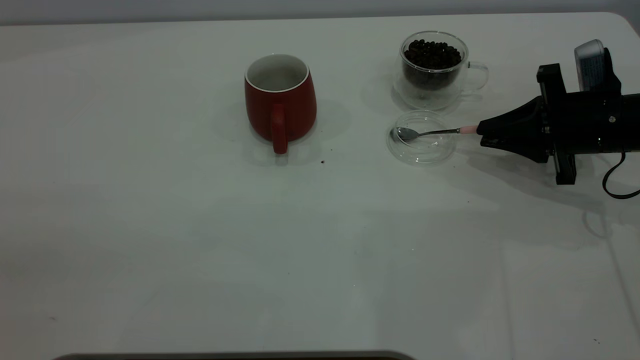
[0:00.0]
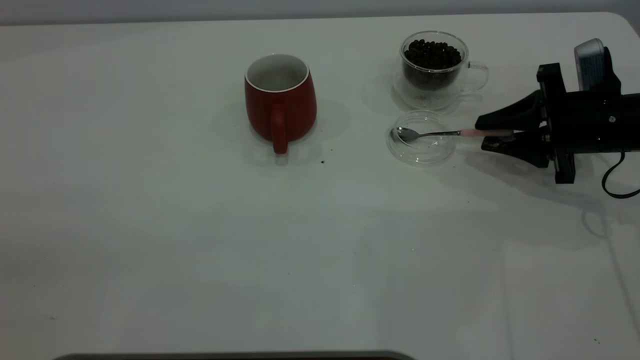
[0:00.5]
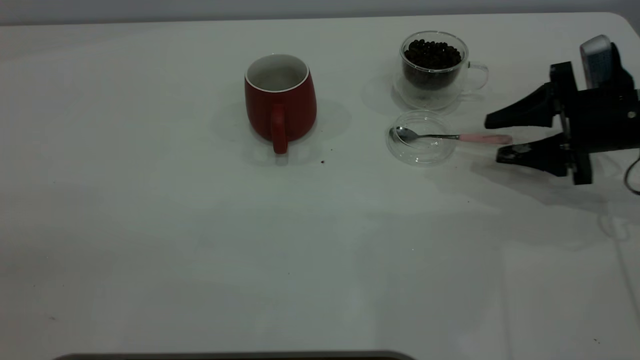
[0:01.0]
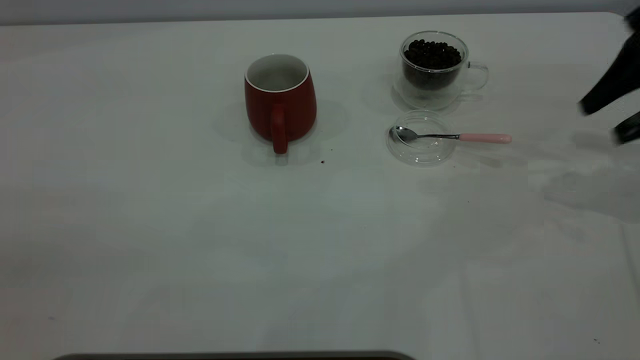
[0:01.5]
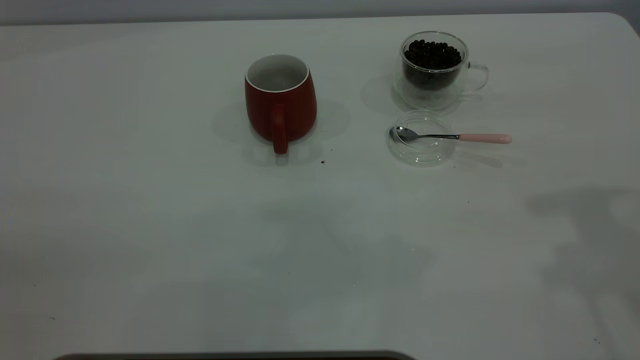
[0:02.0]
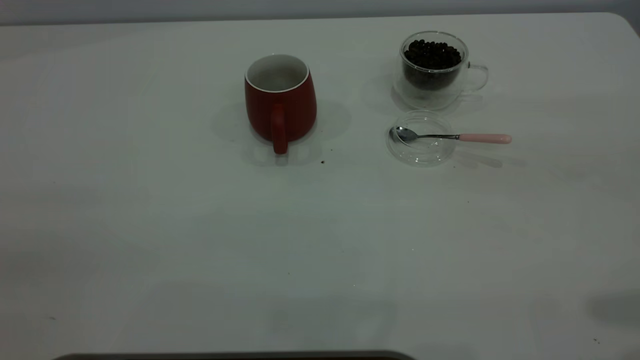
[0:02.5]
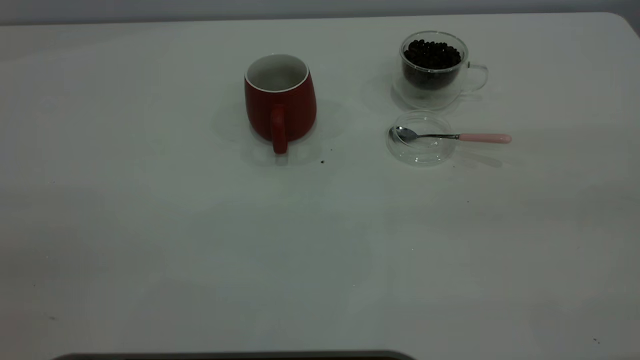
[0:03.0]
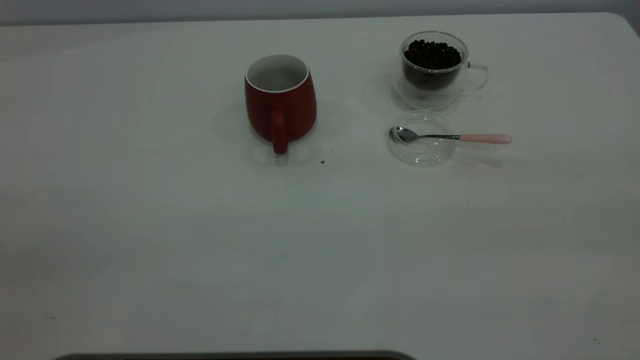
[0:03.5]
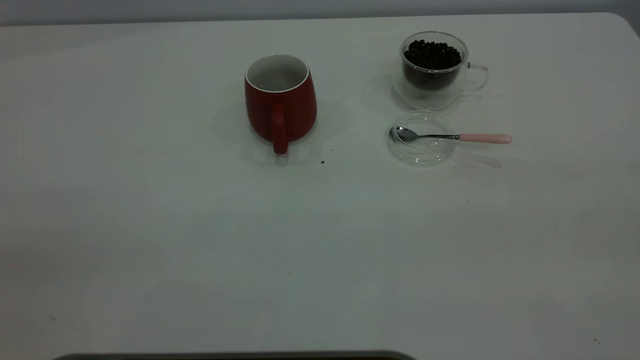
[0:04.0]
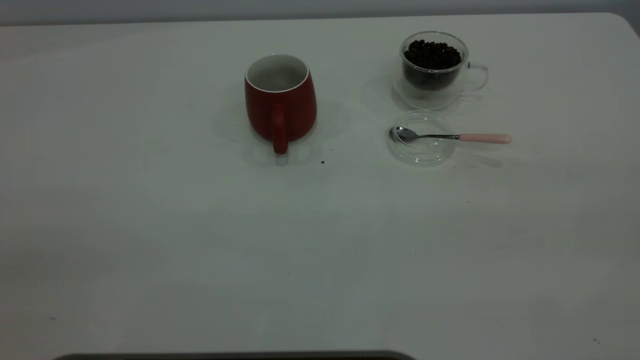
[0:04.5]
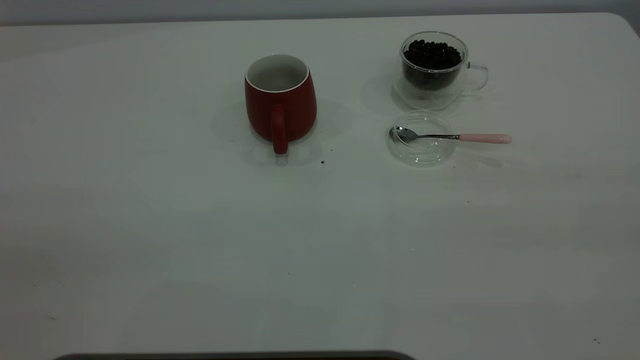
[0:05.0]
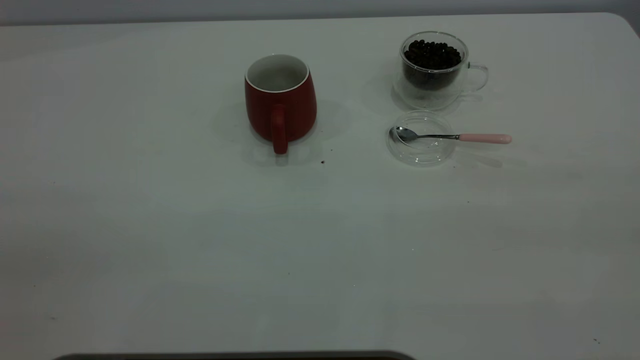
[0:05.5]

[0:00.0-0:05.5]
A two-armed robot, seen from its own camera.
Task of the whole recording: the left gripper place the red cup in the center of the table, the right gripper take the pink spoon from the cup lid and scoop out the coffee beans from the coffee cup and put them into the red cup, the right gripper put the spoon back into the cup lid.
0:00.0 to 0:02.0: The right gripper moves upward, about 35 cm, and opens its fingers.

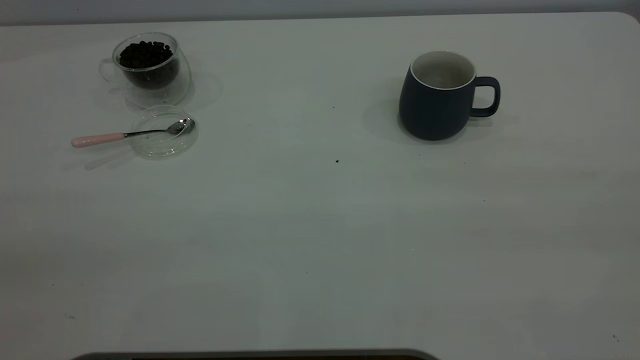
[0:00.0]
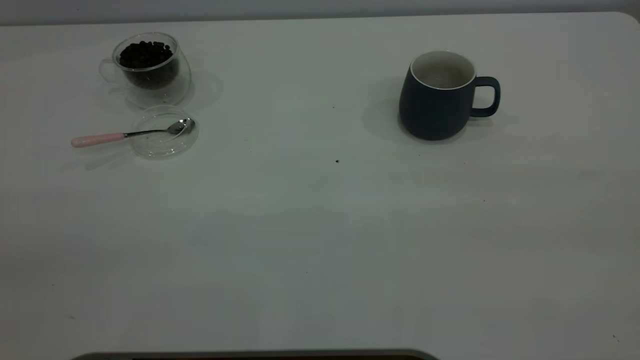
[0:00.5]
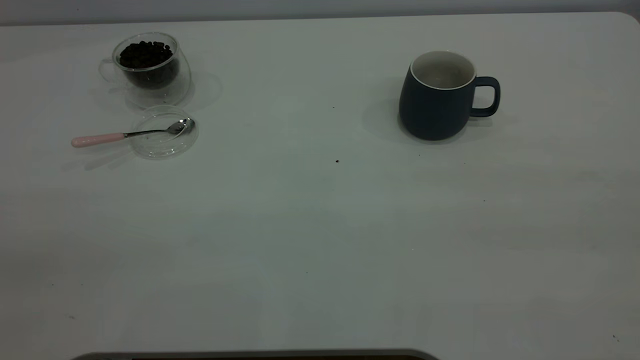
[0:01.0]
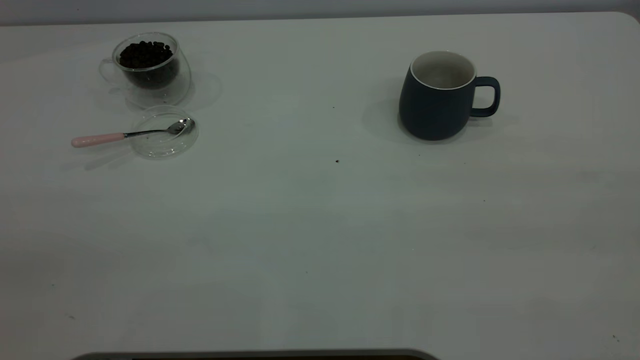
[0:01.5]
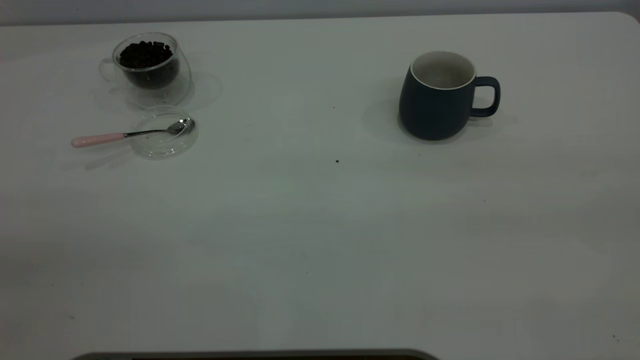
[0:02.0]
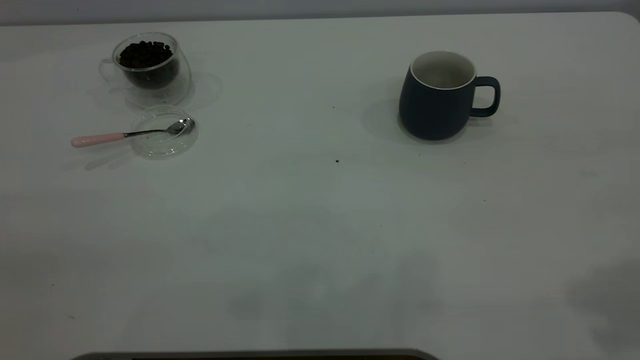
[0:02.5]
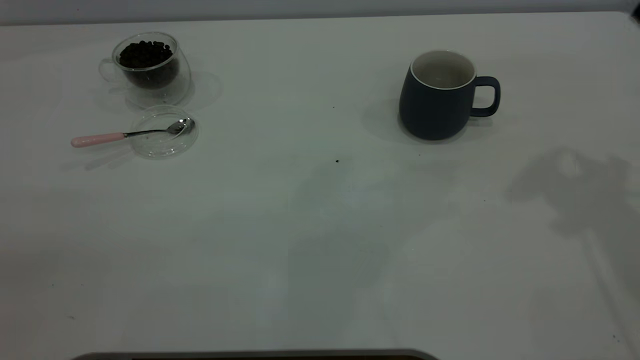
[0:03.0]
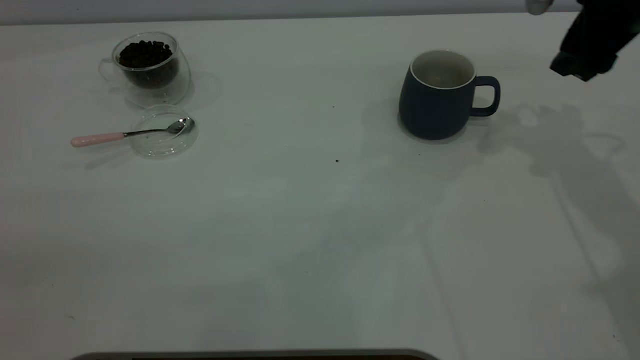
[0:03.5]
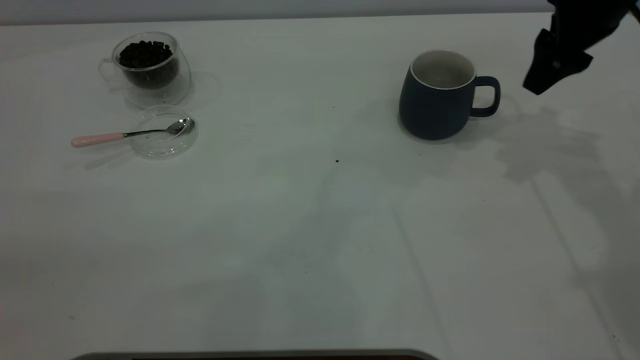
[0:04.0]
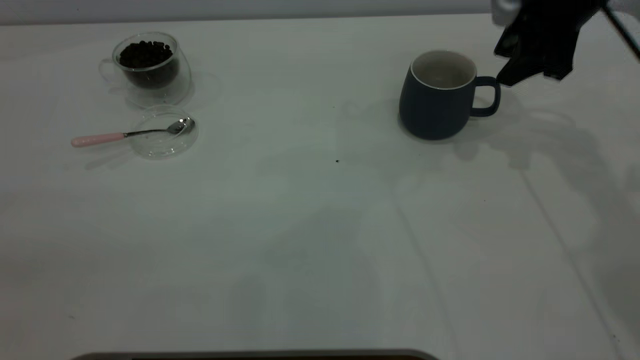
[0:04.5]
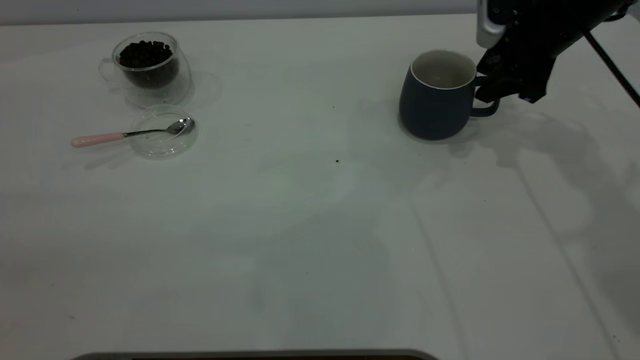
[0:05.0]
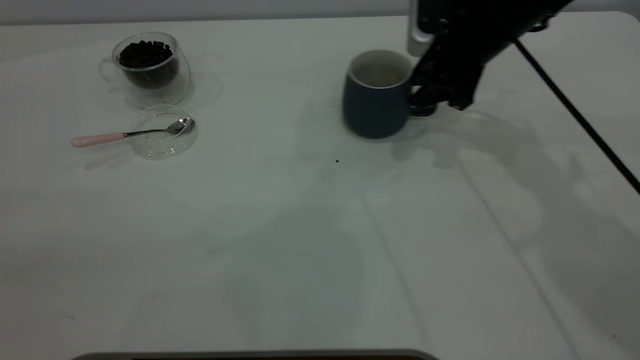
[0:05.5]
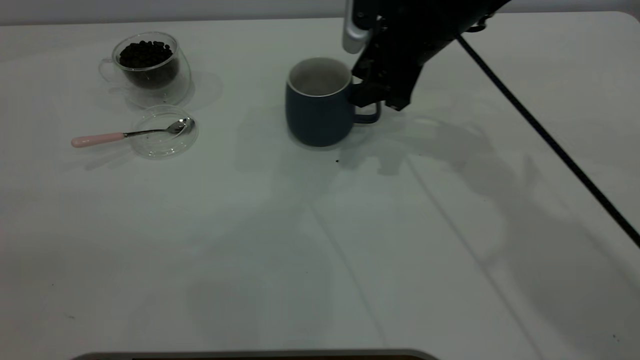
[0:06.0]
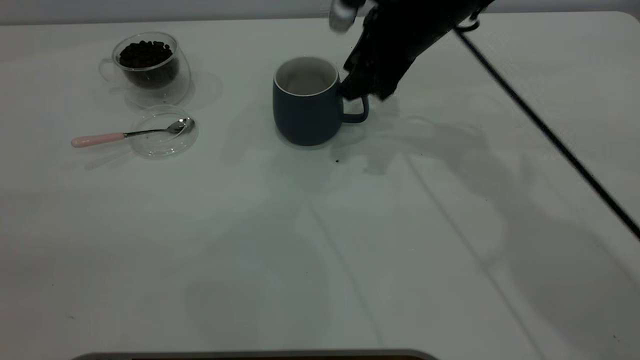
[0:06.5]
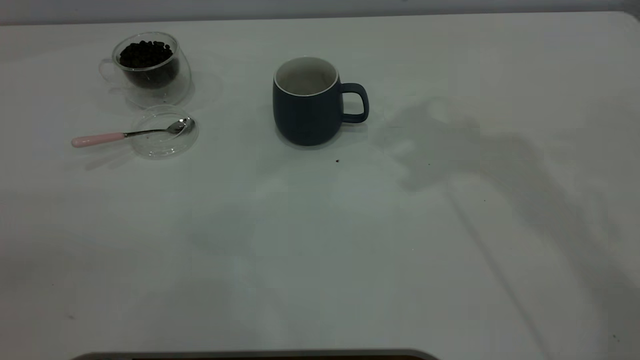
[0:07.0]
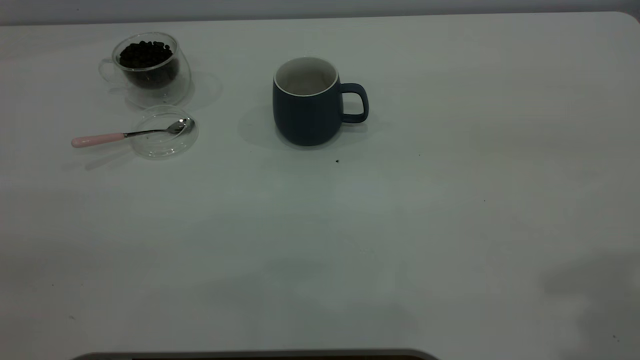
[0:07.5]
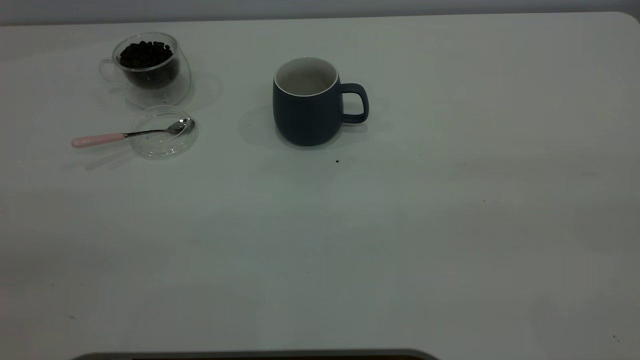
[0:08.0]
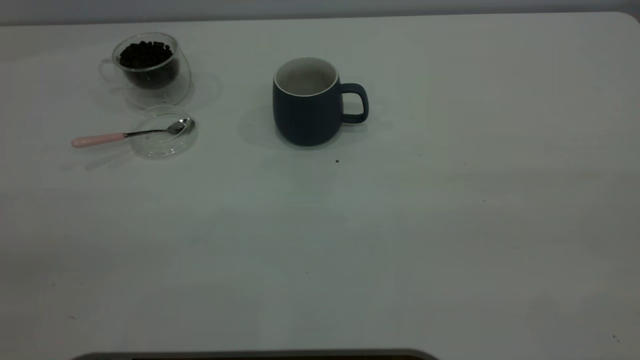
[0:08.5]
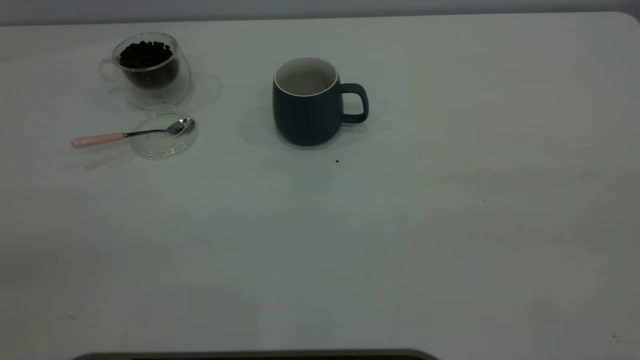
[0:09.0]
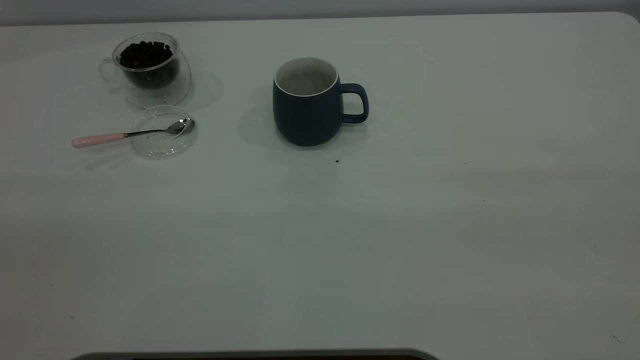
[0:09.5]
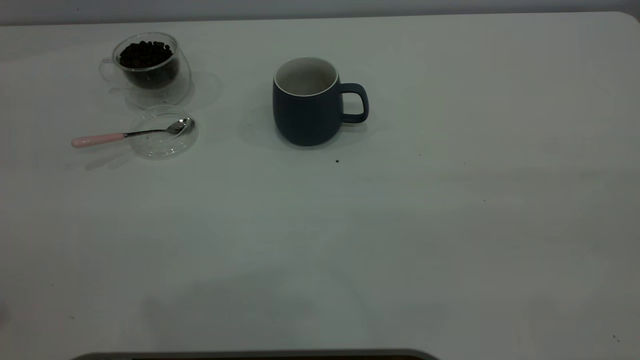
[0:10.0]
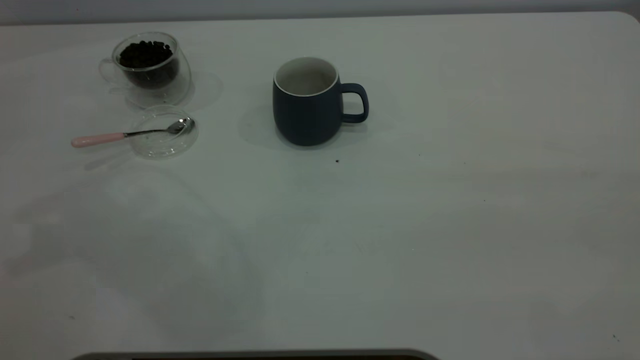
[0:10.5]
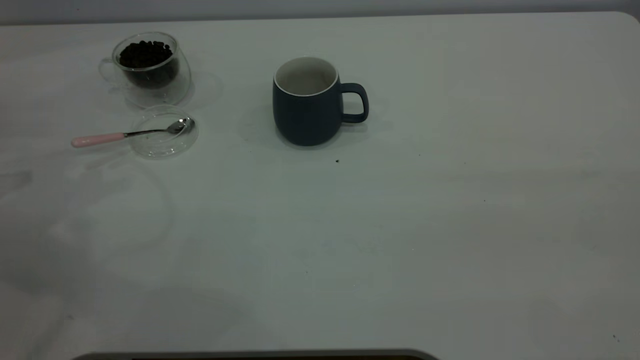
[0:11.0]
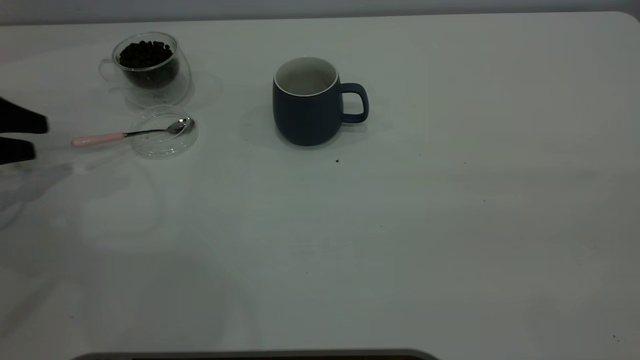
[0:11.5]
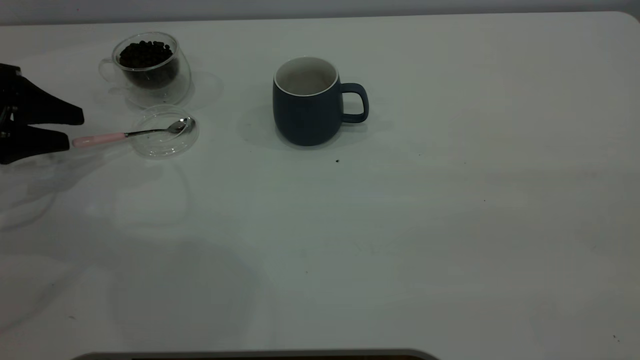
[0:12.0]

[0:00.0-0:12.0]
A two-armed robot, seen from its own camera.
Task of the whole recording: the right gripper place the grey cup in the center of the table, the left gripper take the pink spoon from the cup lid and scoop out the coffee beans from the coffee cup and put them into the grey cup, the left gripper put the spoon back into the cup lid.
Step, 0:00.0 to 0:06.5: Move the cup to the center of view.
0:02.0 to 0:04.0: The right gripper heads forward and downward, covering approximately 40 cm.
0:04.0 to 0:06.0: The right gripper moves to the left and downward, some 15 cm, and closes its fingers.
0:06.0 to 0:08.0: The right gripper is displaced backward, upward and to the right by approximately 50 cm.
0:10.0 to 0:12.0: The left gripper shifts some 35 cm downward and forward.

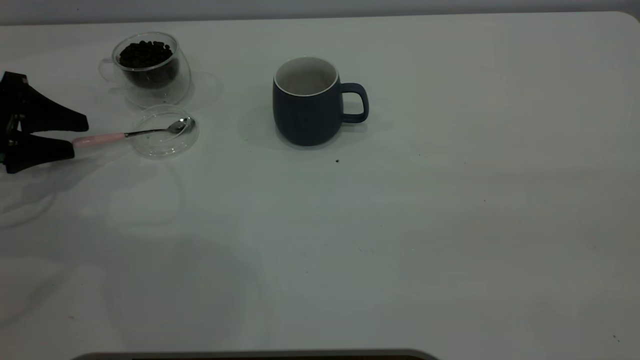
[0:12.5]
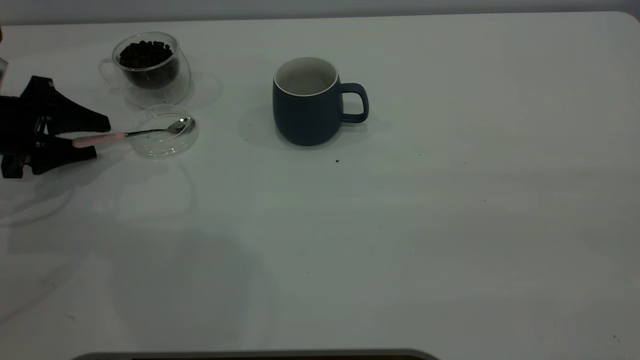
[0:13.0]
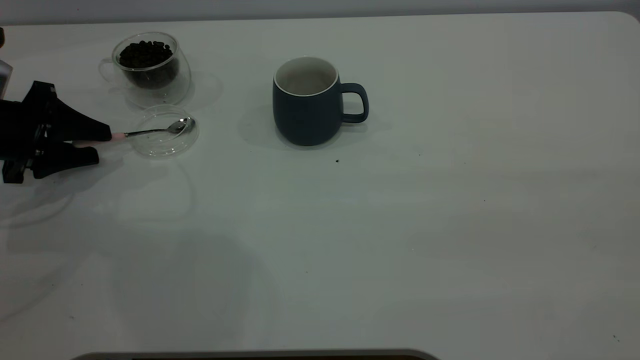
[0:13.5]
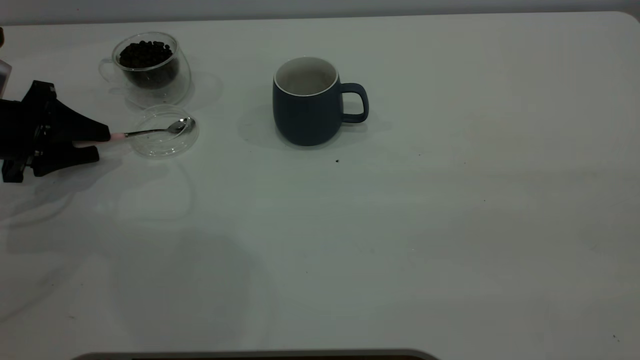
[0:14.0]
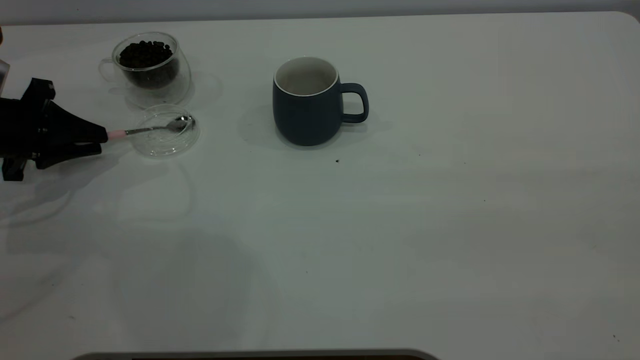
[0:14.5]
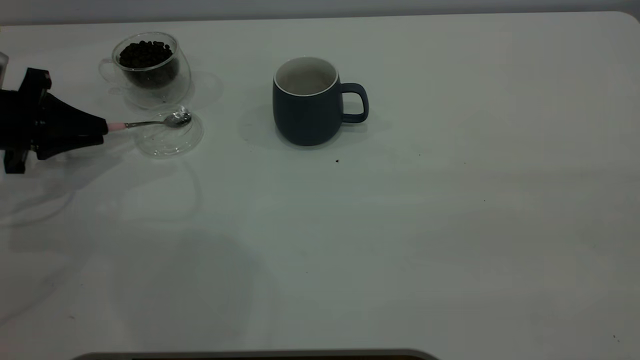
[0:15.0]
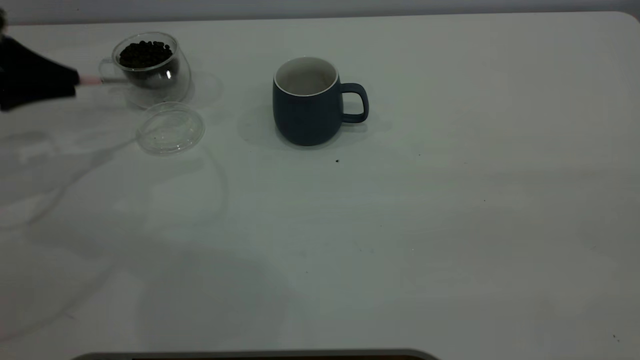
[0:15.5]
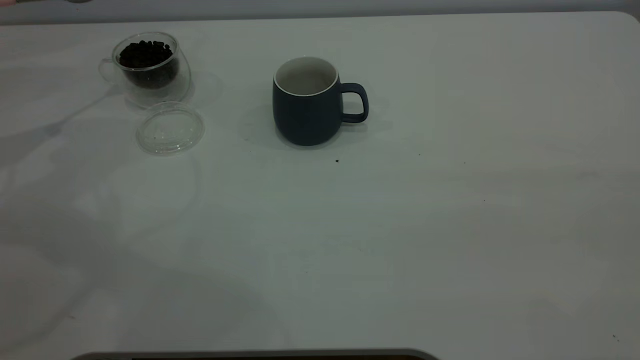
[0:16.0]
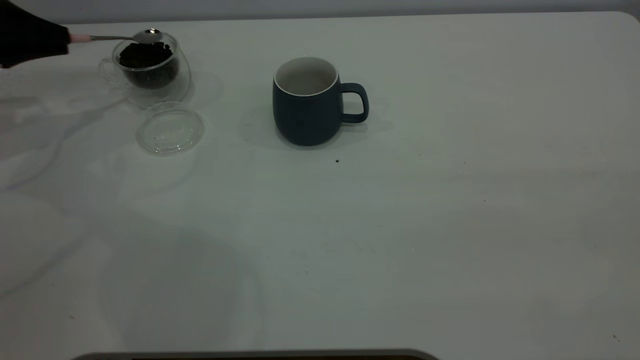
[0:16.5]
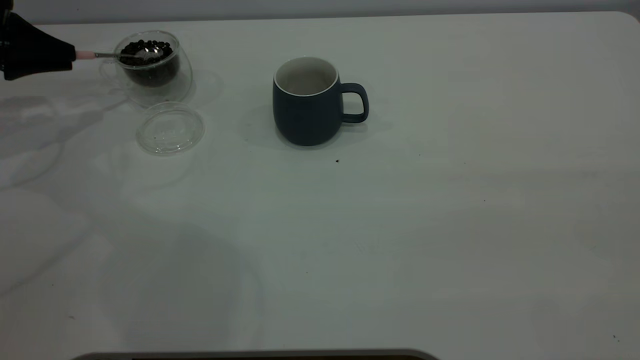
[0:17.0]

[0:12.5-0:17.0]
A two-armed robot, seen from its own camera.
Task of the whole recording: the right gripper place the grey cup in the center of the table, the left gripper take the pink spoon from the cup lid and scoop out the coffee beans from the coffee cup and put them into the grey cup, the left gripper put the spoon back into the cup lid.
Step, 0:12.5 to 0:15.0: Pick up the spoon.
0:12.5 to 0:14.5: The left gripper closes.
0:14.5 to 0:17.0: The left gripper heads forward and upward, covering about 10 cm.
